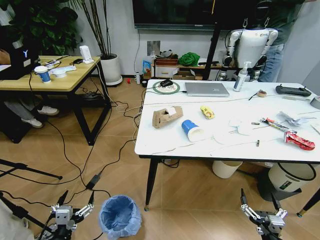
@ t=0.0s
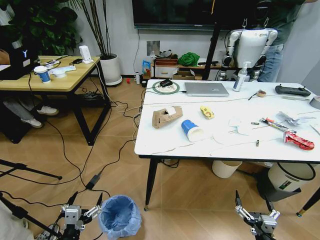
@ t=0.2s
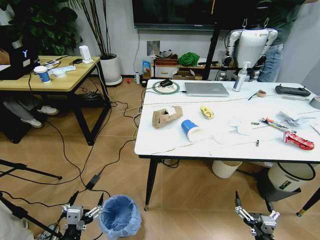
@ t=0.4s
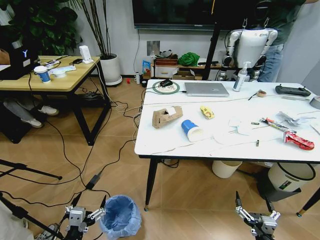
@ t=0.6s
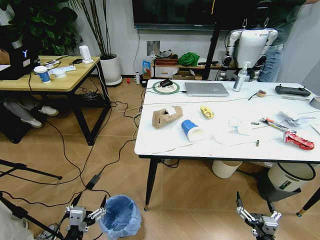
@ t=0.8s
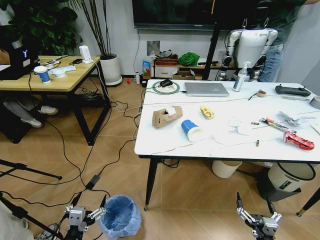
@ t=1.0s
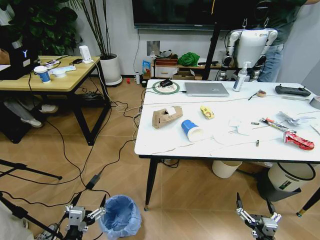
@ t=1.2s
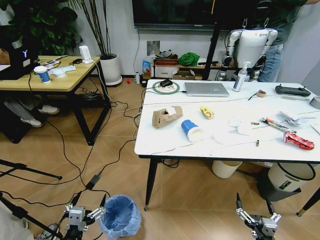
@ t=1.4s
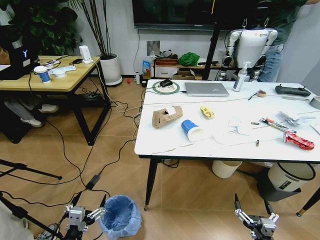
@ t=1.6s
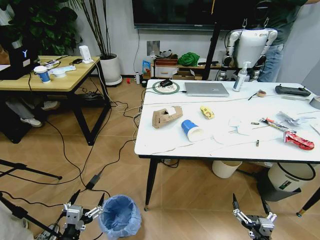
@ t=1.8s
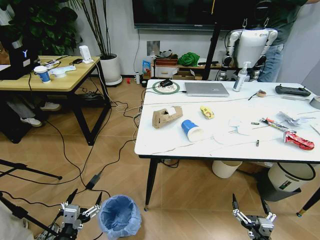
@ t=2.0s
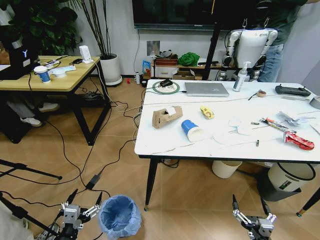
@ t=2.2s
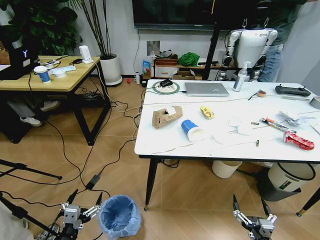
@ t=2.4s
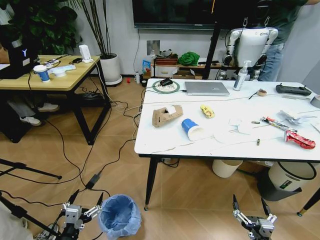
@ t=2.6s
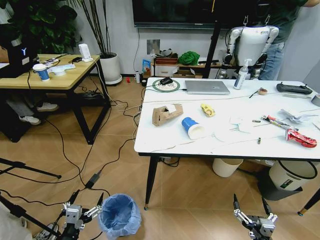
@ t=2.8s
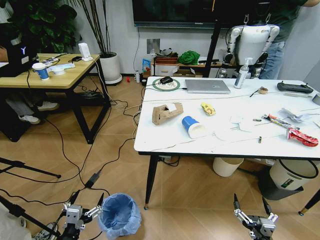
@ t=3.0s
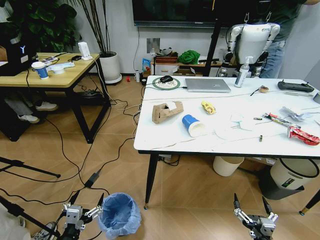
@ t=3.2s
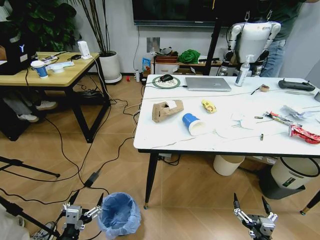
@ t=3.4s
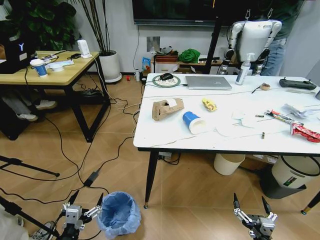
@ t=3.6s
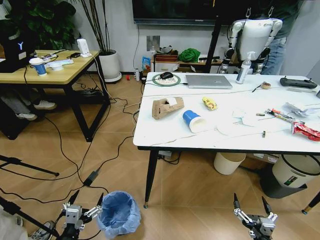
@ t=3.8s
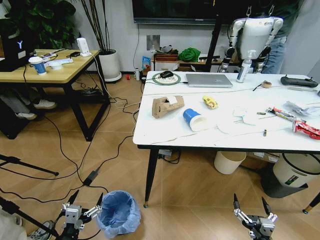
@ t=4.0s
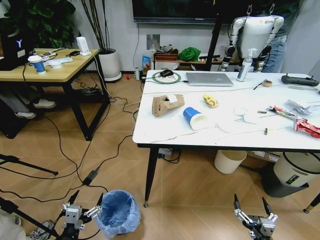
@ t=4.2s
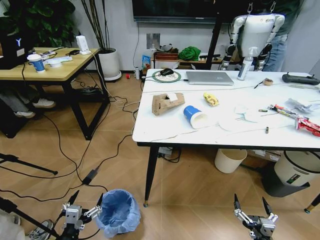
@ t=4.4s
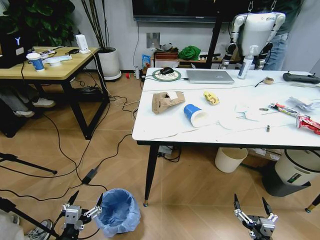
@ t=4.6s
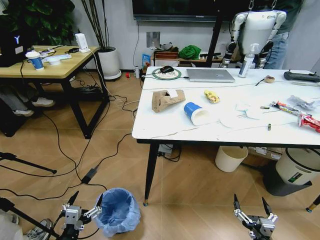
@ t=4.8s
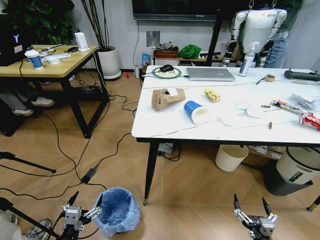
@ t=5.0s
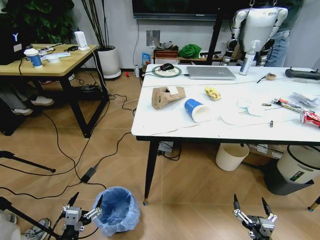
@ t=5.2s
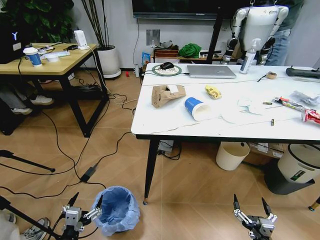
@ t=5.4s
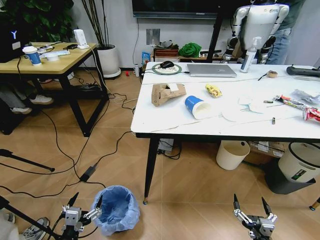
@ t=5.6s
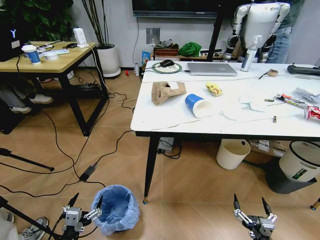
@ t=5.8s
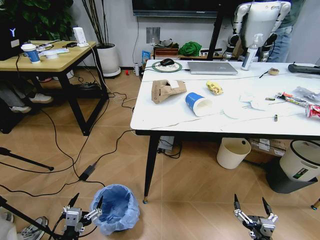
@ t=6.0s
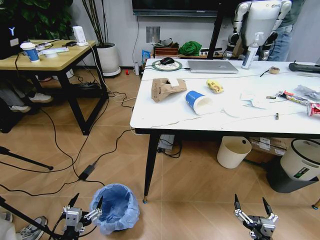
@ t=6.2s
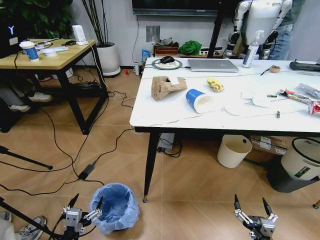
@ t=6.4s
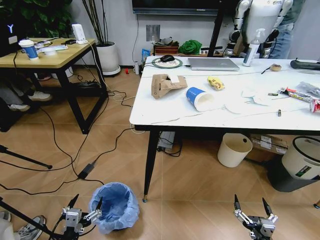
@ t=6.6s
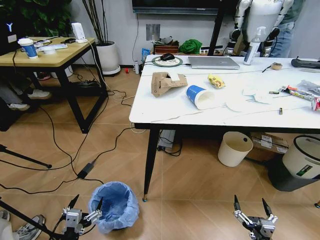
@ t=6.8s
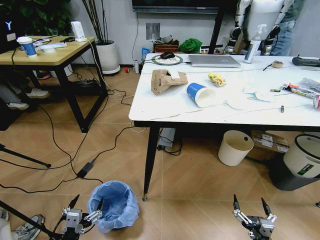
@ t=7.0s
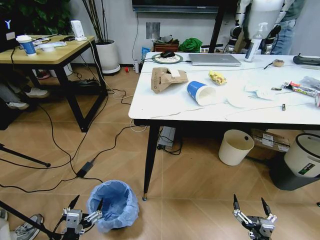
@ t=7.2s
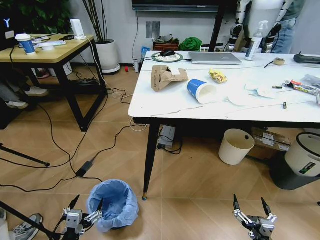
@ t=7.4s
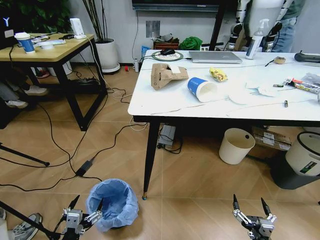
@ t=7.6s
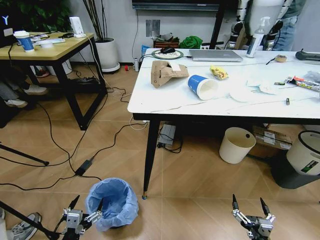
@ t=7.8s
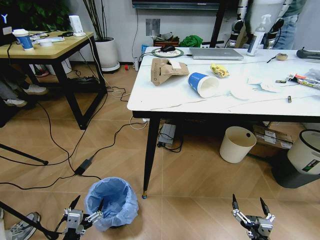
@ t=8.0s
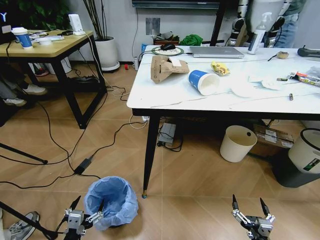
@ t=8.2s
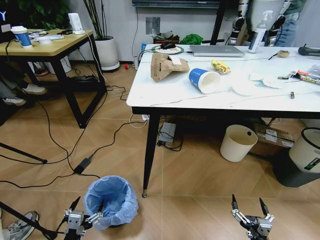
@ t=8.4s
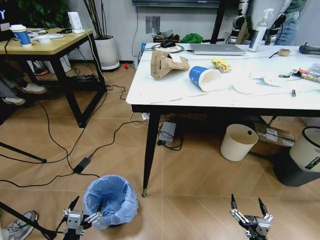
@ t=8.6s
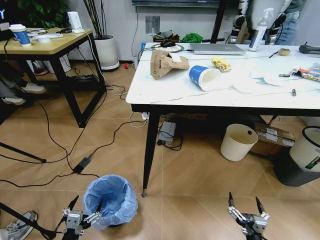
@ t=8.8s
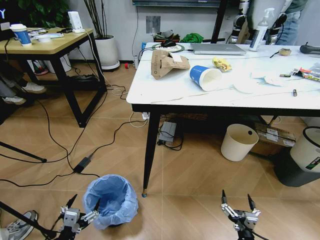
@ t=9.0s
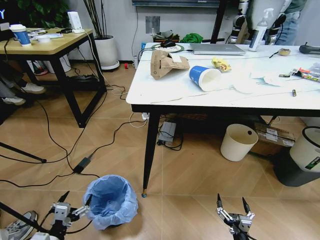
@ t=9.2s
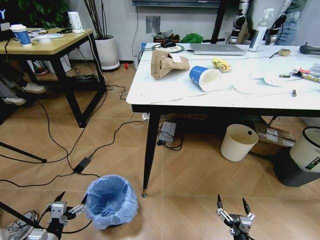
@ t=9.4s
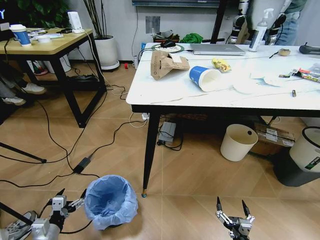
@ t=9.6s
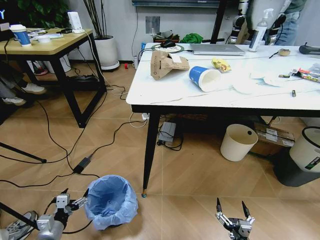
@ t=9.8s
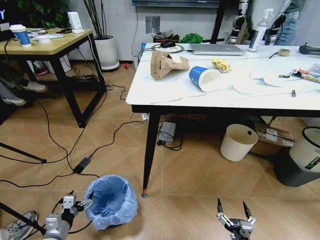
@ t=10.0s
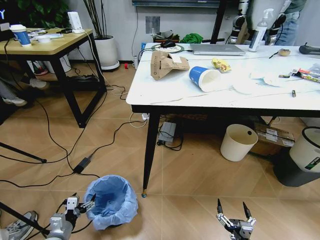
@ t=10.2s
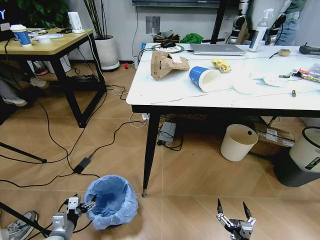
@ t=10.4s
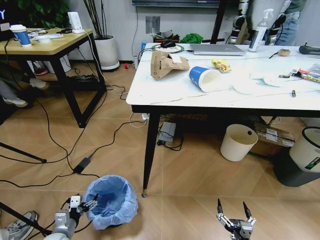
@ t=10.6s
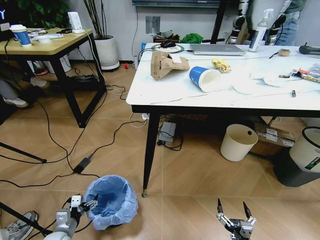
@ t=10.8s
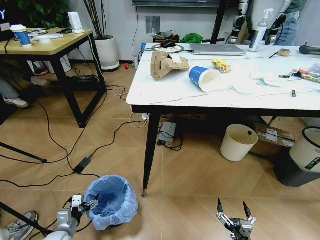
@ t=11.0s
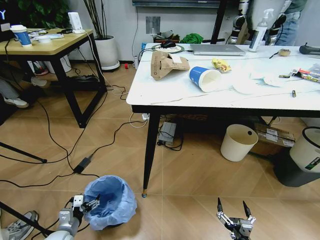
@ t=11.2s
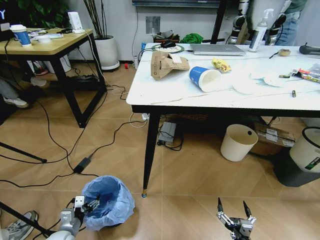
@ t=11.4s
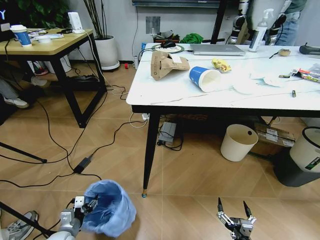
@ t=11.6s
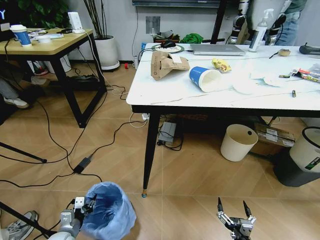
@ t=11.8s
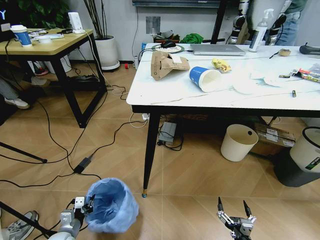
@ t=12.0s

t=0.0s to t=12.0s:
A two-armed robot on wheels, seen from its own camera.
Task of the whole recording: Pick up the trash bin and place the trash from the table into it.
t=7.6s to t=9.0s: The right gripper ends up roughly 5 cm from where it was.
t=9.0s to t=10.4s: The left gripper travels forward, downward and to the left by roughly 15 cm.
t=10.4s to t=12.0s: The left gripper closes its fingers.

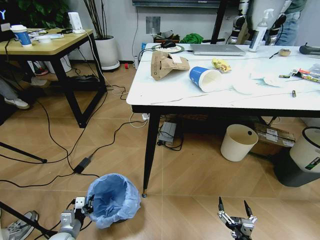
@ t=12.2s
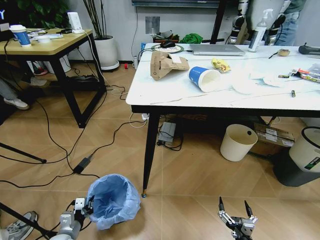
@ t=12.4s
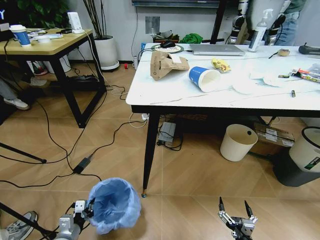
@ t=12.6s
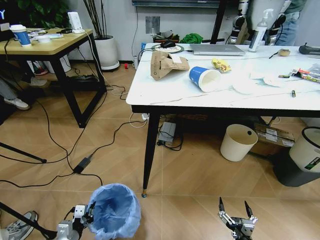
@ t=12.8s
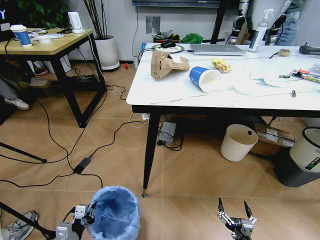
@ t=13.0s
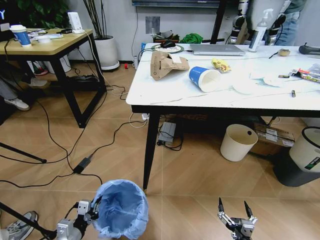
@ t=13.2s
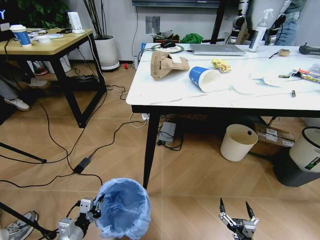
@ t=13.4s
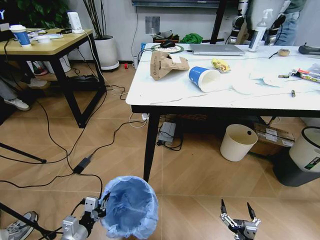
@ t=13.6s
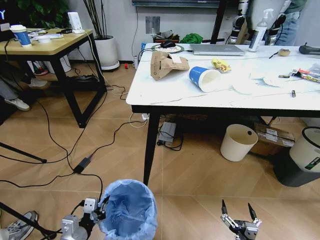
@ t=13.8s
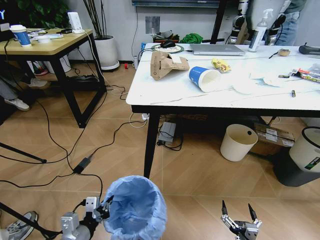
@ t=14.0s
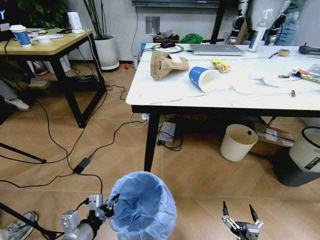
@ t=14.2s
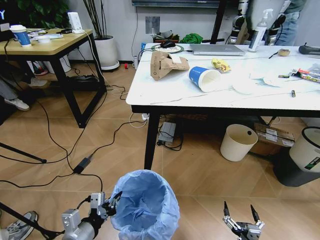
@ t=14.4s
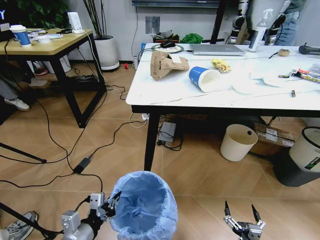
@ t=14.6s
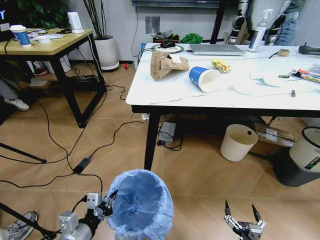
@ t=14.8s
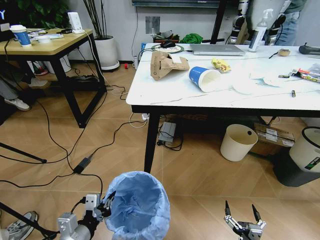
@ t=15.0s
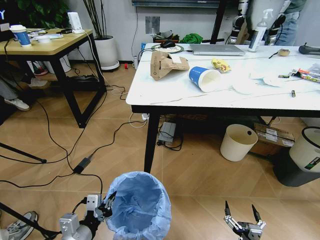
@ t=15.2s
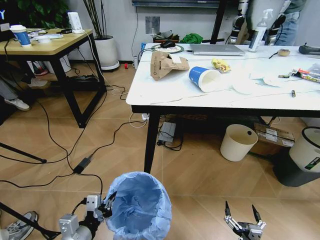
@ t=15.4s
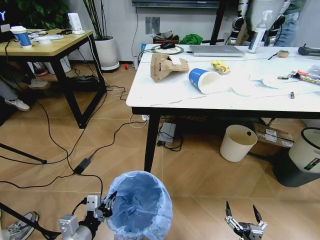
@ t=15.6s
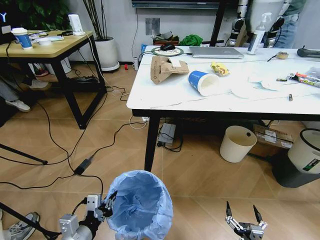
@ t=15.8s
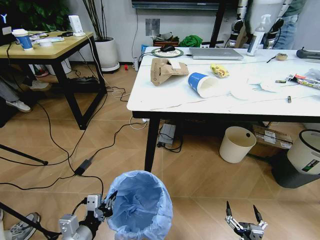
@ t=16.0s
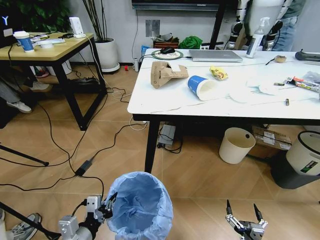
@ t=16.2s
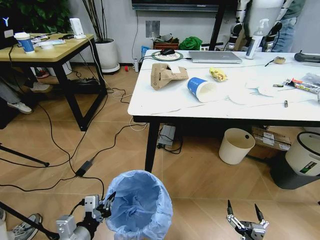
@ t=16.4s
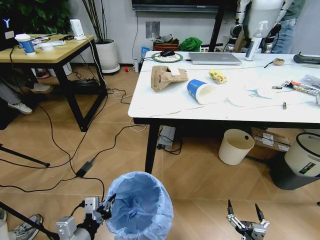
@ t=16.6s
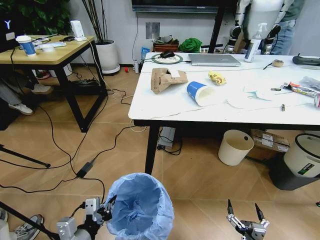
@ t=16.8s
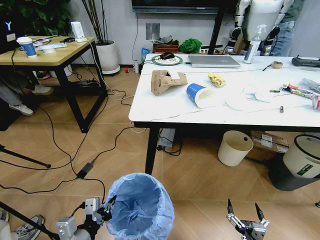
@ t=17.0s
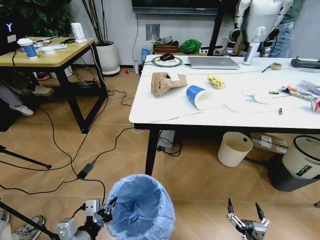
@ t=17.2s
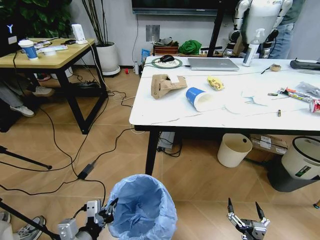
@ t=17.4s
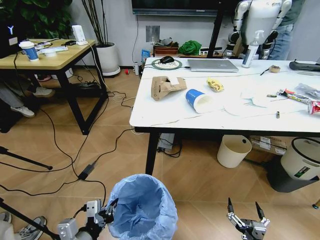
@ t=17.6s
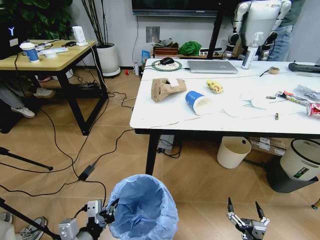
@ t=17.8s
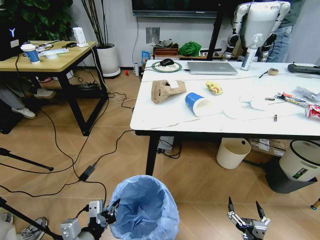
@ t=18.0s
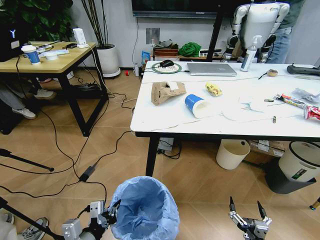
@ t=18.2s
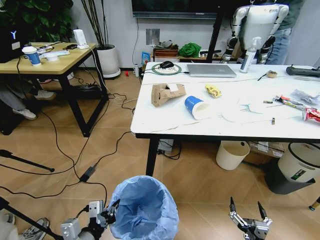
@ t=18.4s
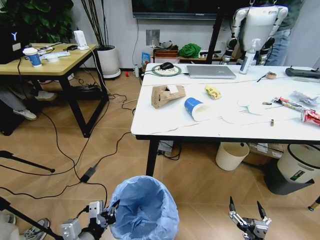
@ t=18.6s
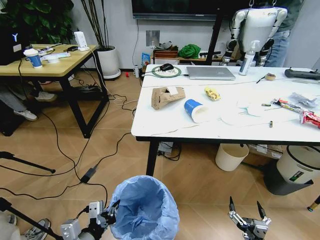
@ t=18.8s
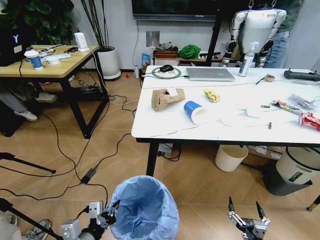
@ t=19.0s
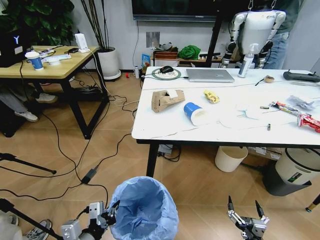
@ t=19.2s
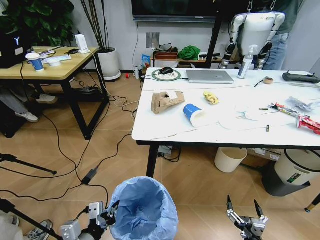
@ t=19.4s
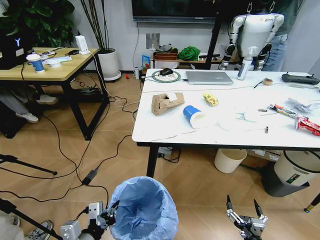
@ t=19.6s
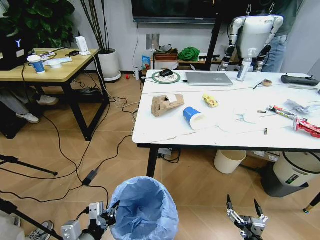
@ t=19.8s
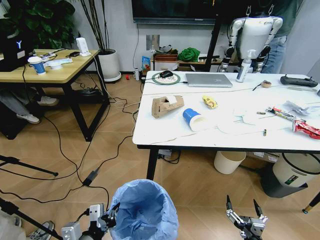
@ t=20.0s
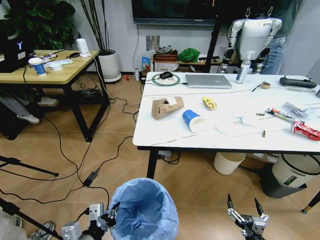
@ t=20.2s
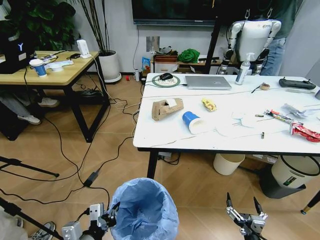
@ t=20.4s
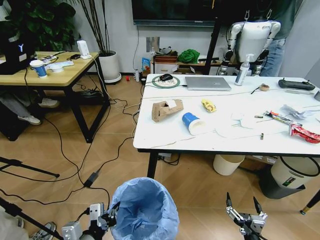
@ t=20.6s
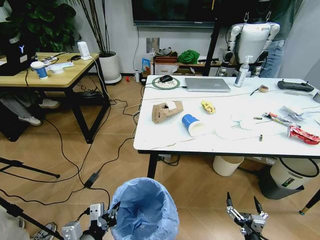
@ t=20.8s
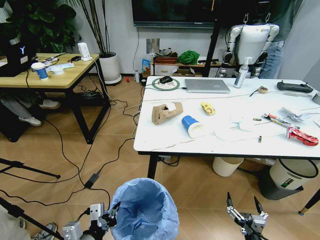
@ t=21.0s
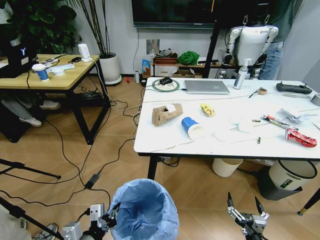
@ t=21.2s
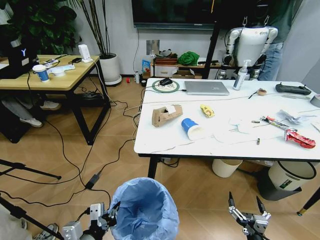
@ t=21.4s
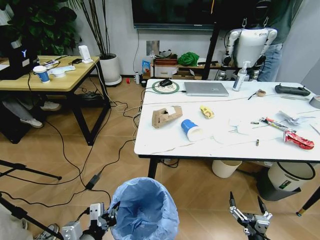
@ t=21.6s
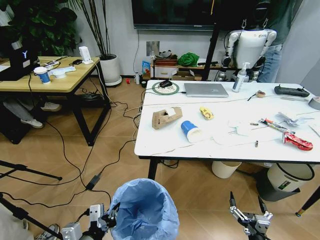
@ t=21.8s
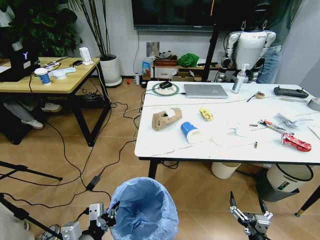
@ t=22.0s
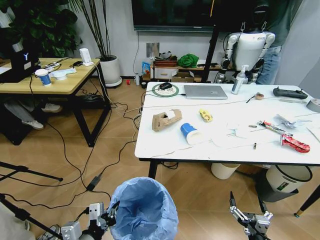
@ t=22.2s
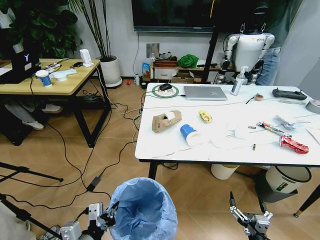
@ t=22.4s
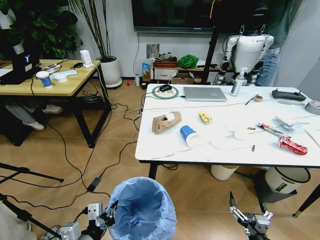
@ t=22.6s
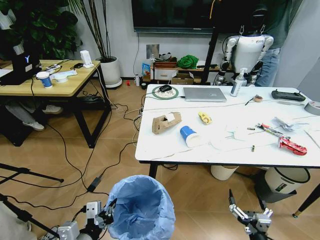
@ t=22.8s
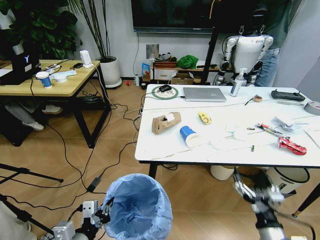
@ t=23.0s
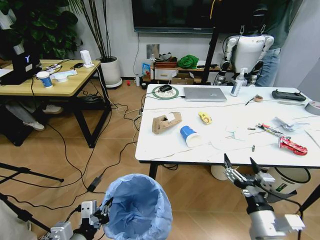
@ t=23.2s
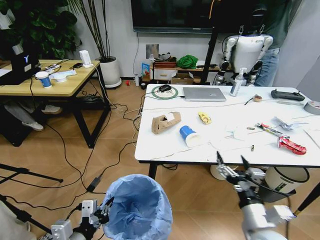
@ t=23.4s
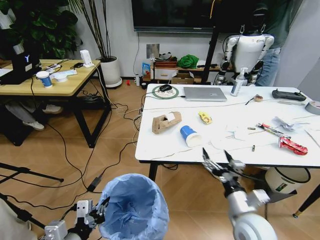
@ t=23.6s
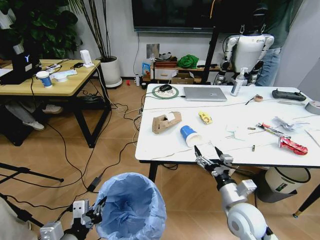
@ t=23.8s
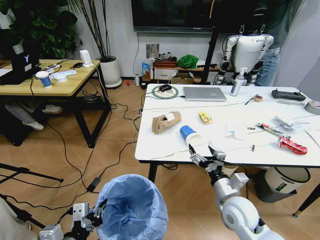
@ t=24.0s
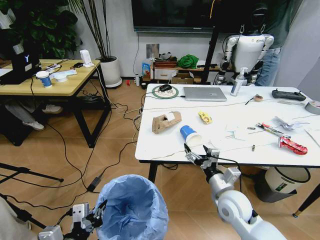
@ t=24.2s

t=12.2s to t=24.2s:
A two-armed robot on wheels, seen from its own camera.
Task of the whole recording: Pick up the trash bin and place the trash from the table into it.
t=12.2s to t=13.8s: The left gripper heads upward, to the right and backward, covering some 15 cm.
t=13.8s to t=15.2s: The left gripper shifts roughly 5 cm upward.
t=22.6s to t=24.2s: The right gripper goes roughly 25 cm forward and upward.
